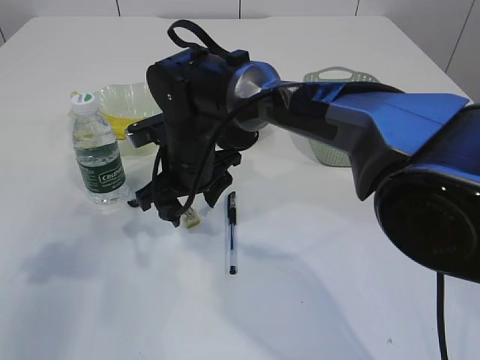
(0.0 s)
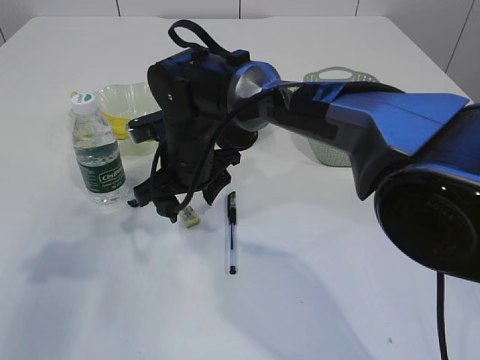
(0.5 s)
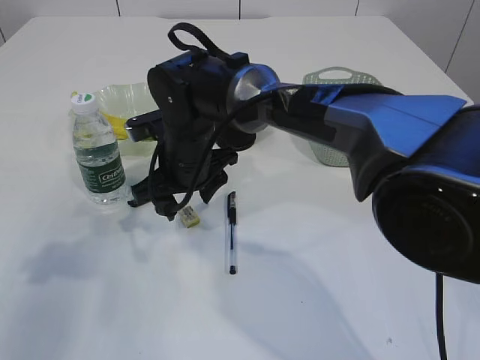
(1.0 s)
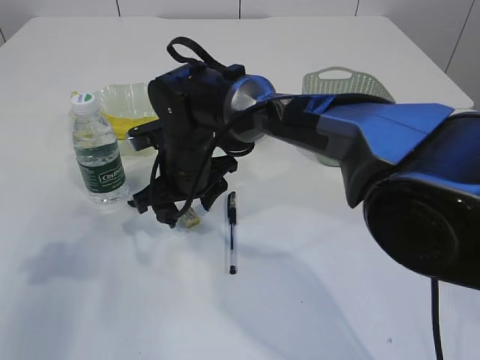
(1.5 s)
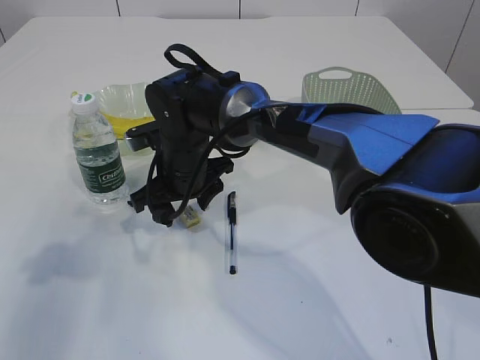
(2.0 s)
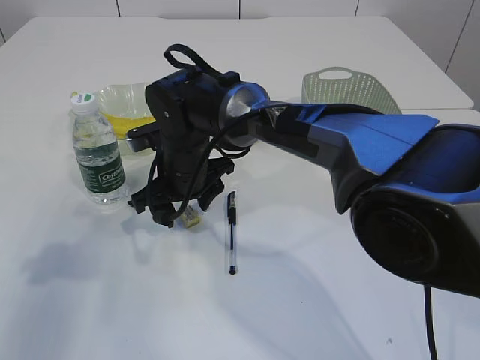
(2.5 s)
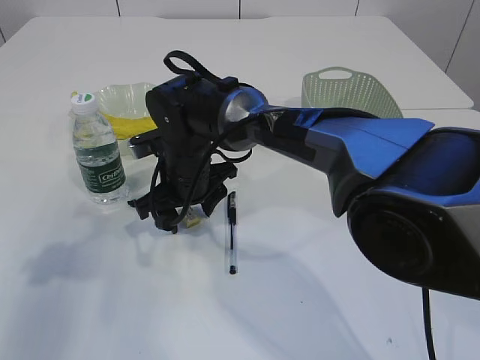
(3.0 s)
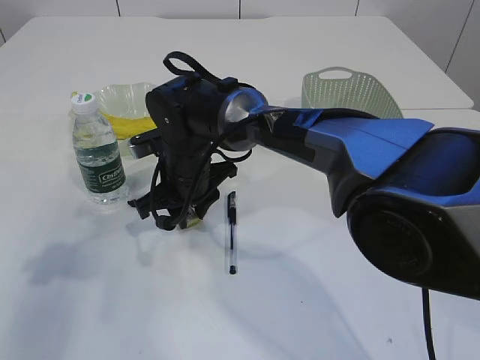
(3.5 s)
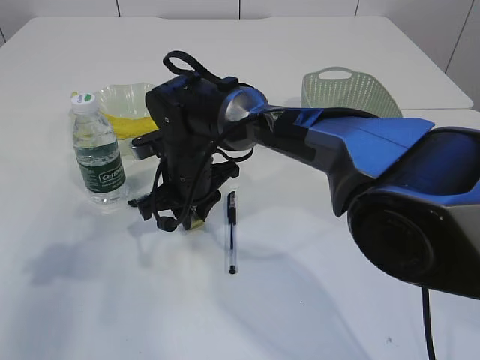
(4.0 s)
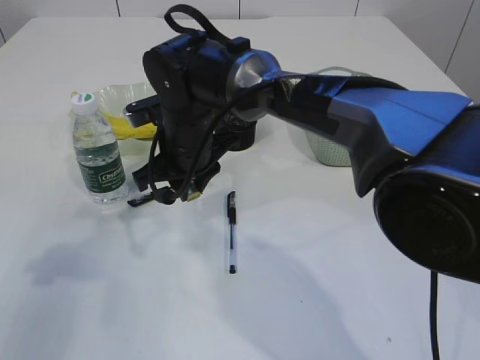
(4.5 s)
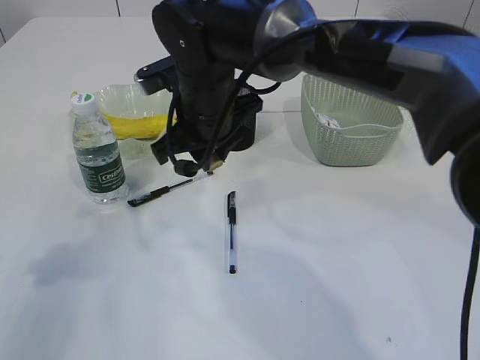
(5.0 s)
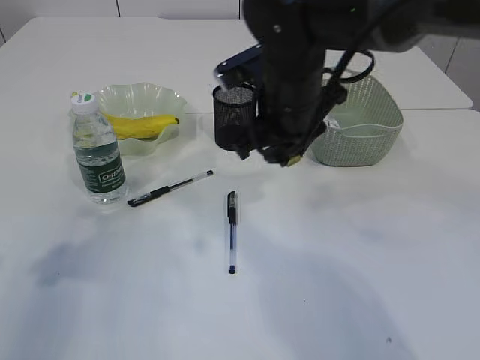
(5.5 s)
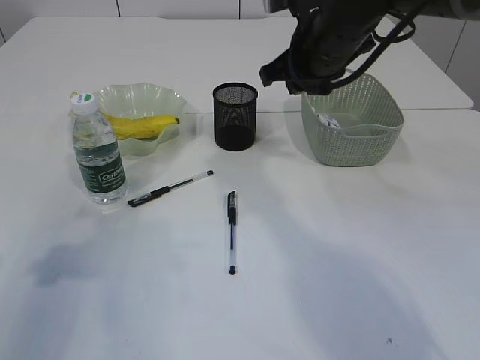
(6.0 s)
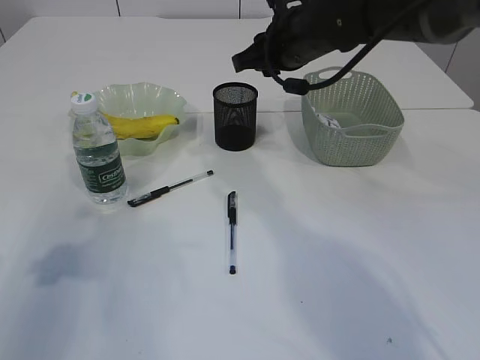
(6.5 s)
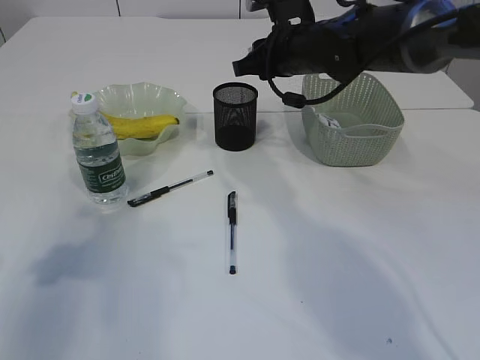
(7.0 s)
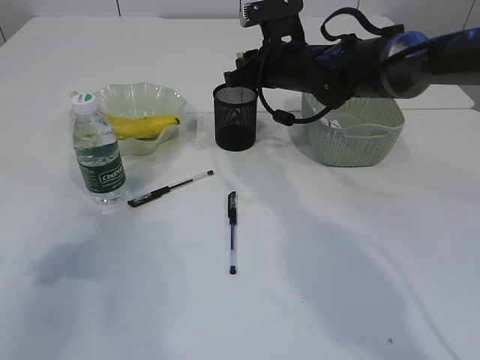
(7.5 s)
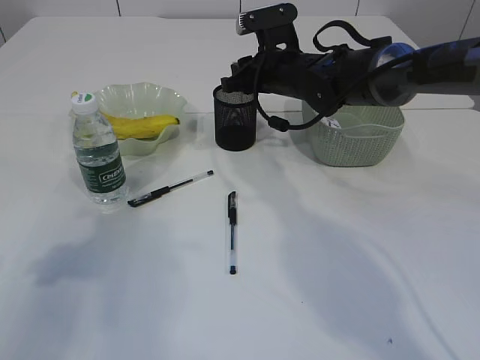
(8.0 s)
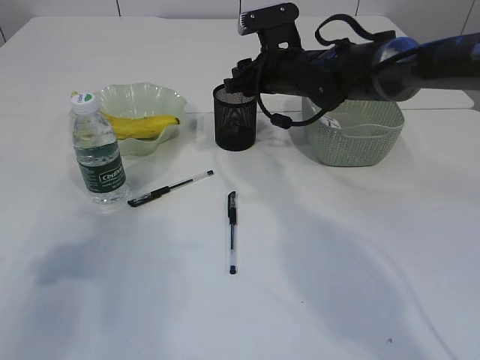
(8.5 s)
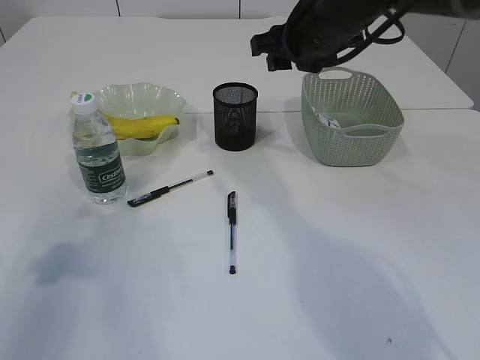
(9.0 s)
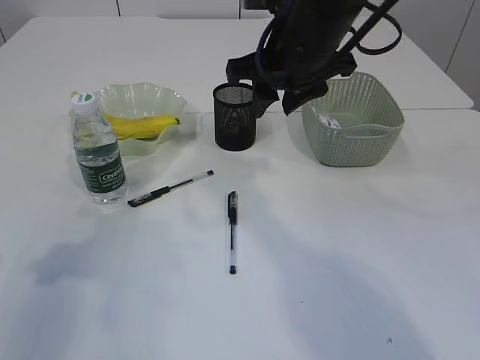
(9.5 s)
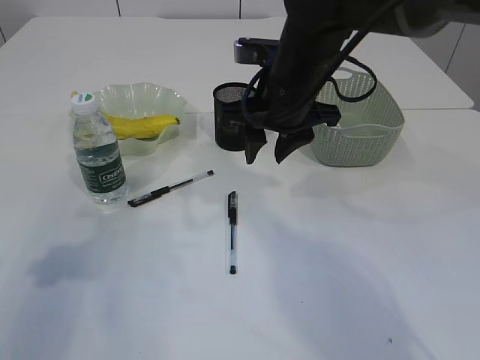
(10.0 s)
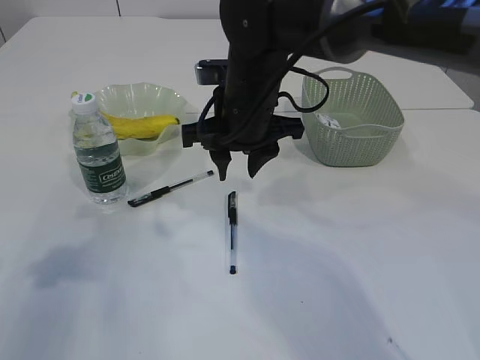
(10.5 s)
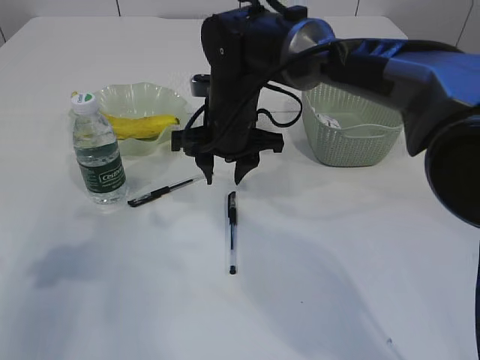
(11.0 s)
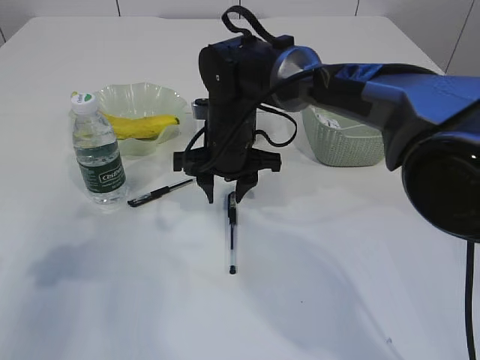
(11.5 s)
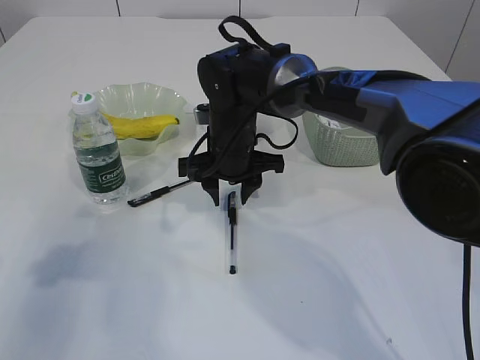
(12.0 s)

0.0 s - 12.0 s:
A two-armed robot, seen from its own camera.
Step, 0.0 s - 4.0 s: Pick up the eraser.
Step, 4.5 s - 8.5 s: Place the eraser into the pen holder.
0.0 s - 2.0 s: The grippers move only a little.
2.0 s - 4.0 s: The right gripper closes up.
4.0 s - 6.0 s: The right gripper is displaced to the right and upward by about 20 cm.
6.0 s - 8.0 s: The right gripper heads downward and forward, covering approximately 10 cm.
8.0 s - 10.0 s: The right gripper travels backward and upward by about 10 cm.
10.0 s - 12.0 s: The right gripper travels downward and to the left by about 10 cm.

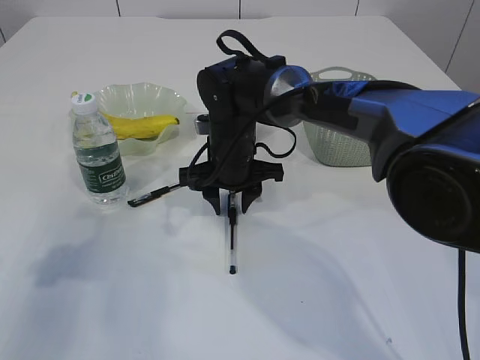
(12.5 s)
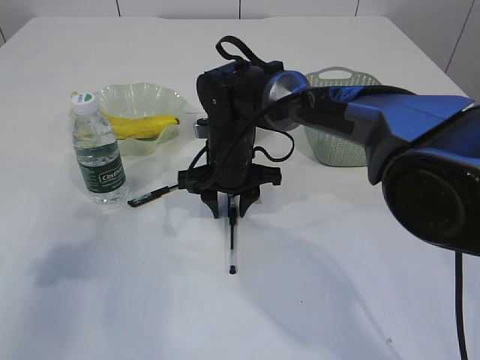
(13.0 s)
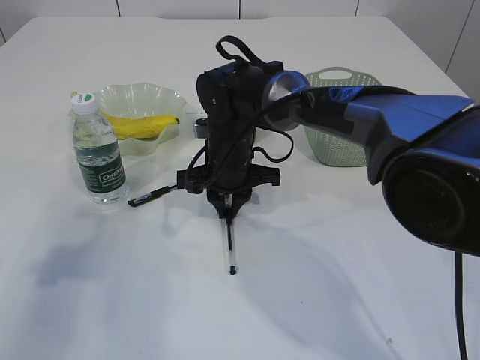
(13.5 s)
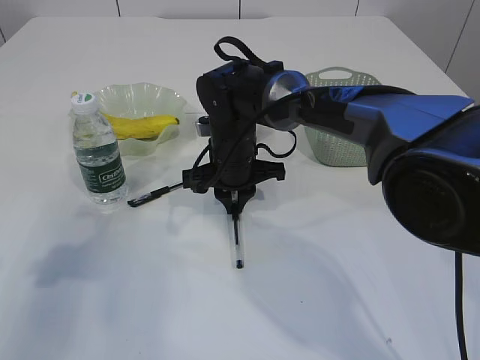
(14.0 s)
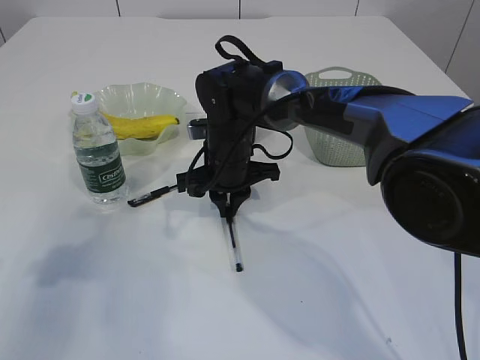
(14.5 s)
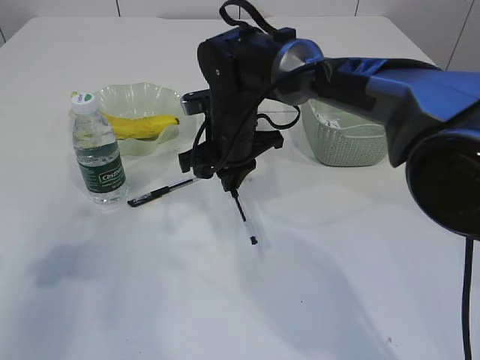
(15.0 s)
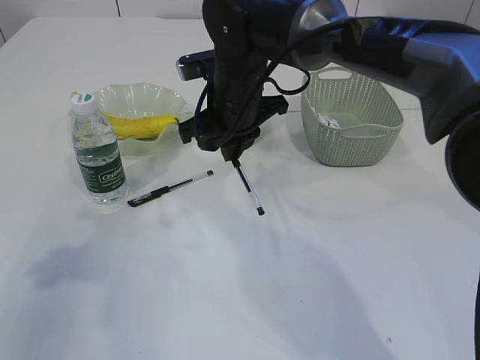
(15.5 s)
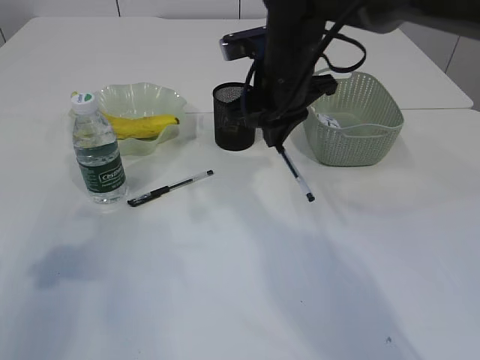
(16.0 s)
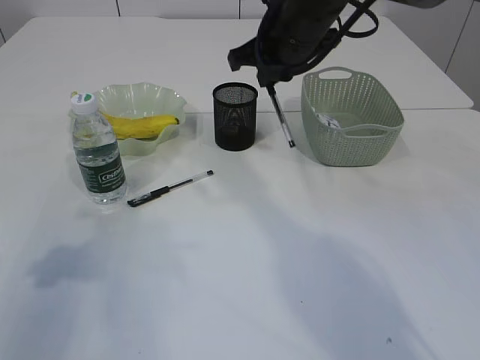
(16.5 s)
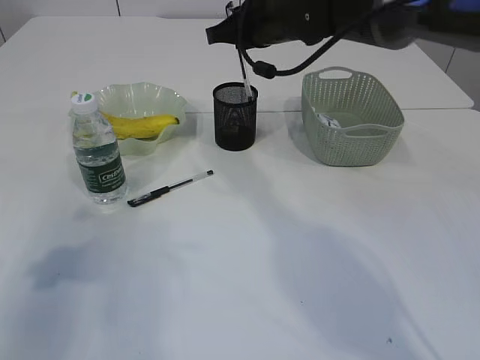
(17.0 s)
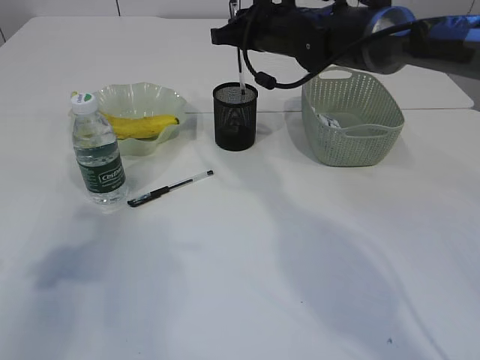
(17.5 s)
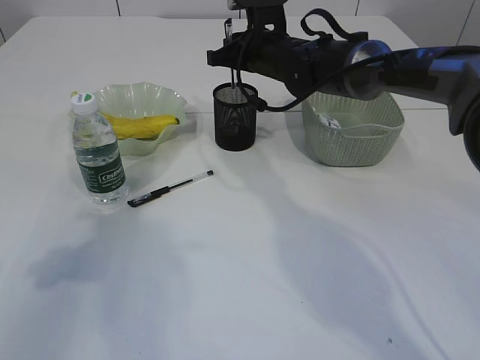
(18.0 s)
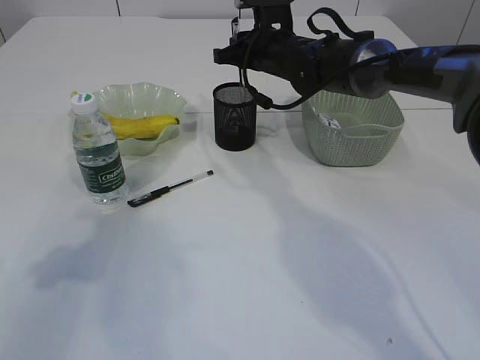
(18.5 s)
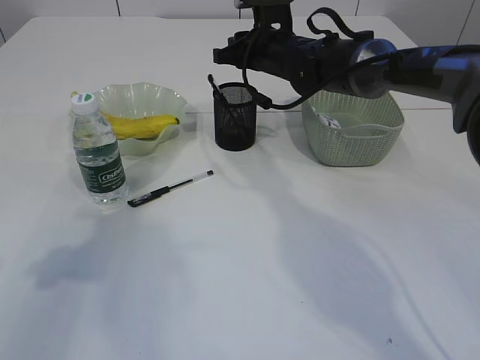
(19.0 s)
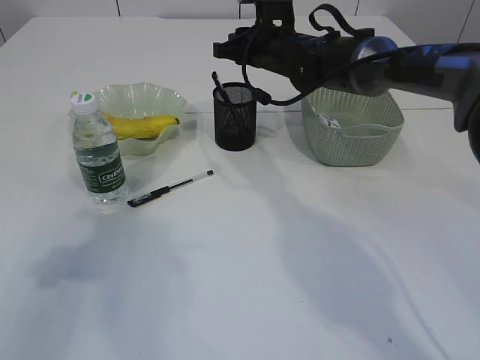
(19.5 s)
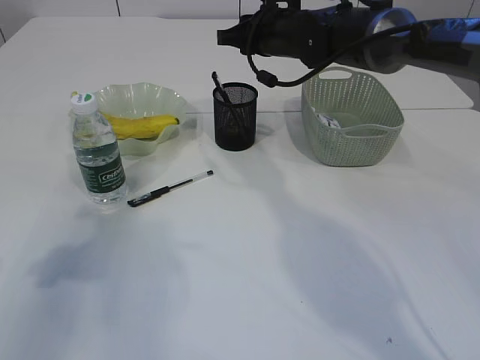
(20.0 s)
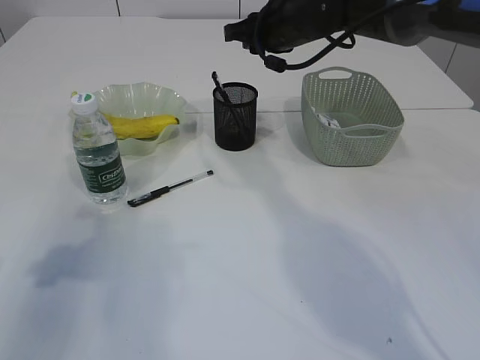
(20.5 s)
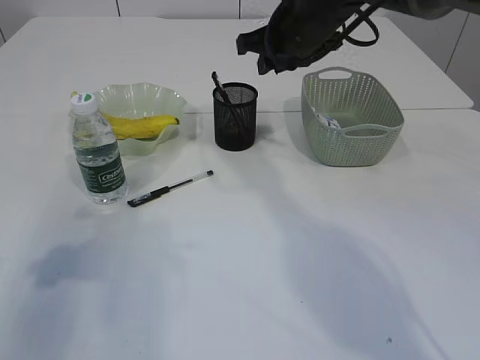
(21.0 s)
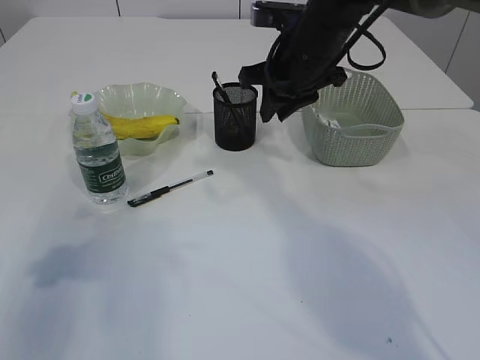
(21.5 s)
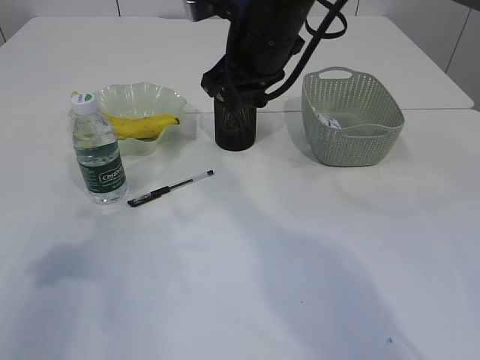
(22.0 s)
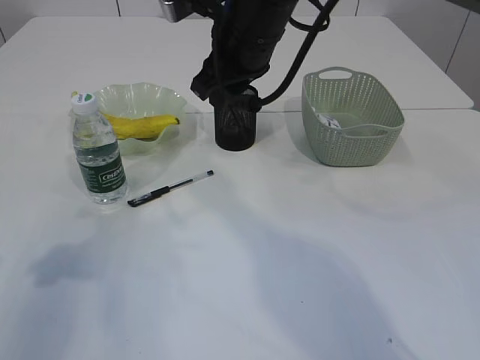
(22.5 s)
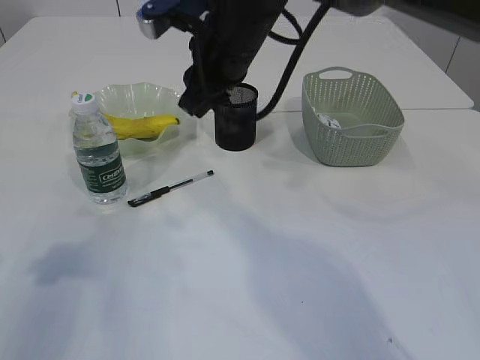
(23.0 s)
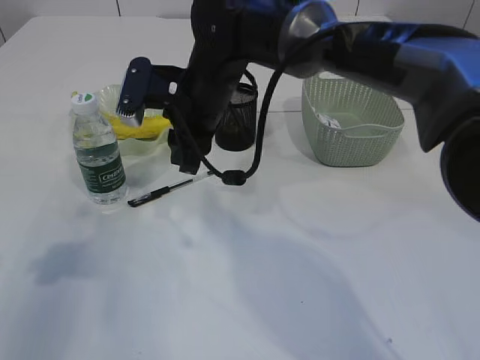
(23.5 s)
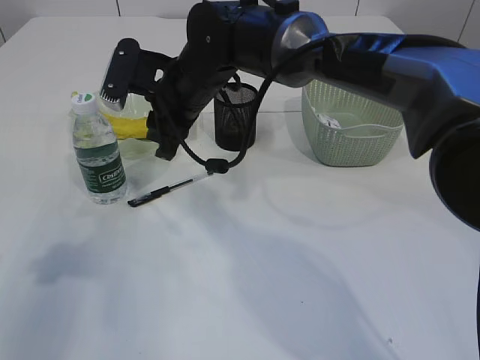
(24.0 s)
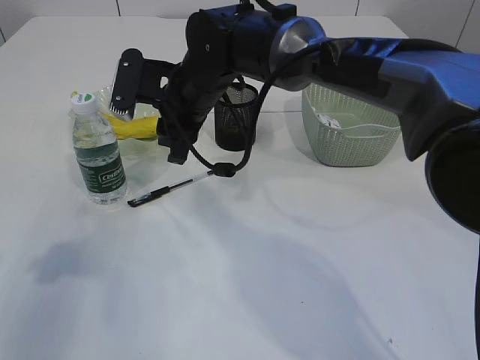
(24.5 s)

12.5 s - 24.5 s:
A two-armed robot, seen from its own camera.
Step, 12.5 s - 15.0 s: Pick up the pen with right arm.
Step, 15.5 s - 19.5 s: Place the pen into the pen holder.
12.5 s - 14.5 s: The right gripper closes up.
14.5 s - 16.5 s: The right gripper travels upward and to the right by approximately 20 cm.
16.5 s - 18.5 s: The right gripper travels forward and downward by roughly 10 cm.
18.5 s - 20.5 s: The right gripper goes approximately 5 cm upward.
20.5 s - 22.5 s: The right gripper goes roughly 10 cm backward and to the left.
22.5 s - 24.5 s: The right gripper shifts roughly 10 cm downward and to the left.

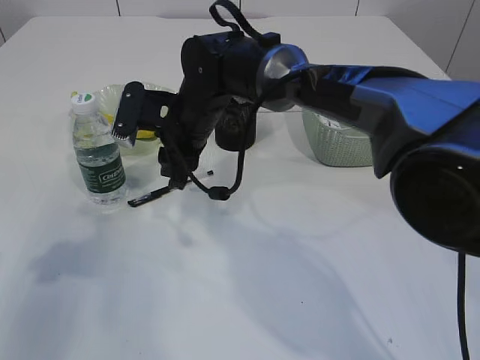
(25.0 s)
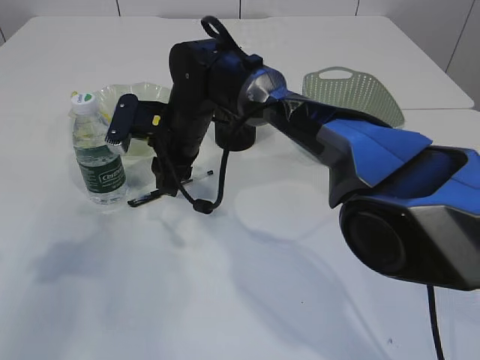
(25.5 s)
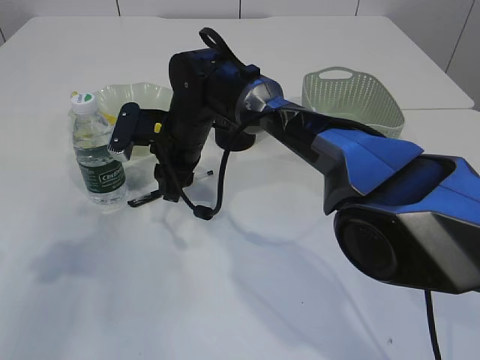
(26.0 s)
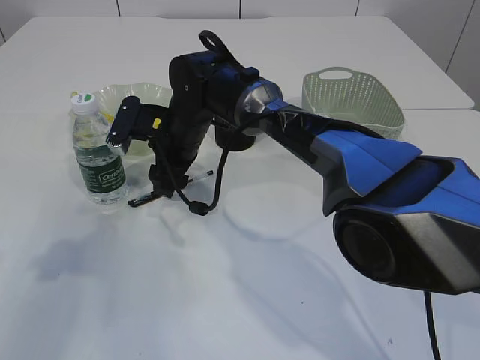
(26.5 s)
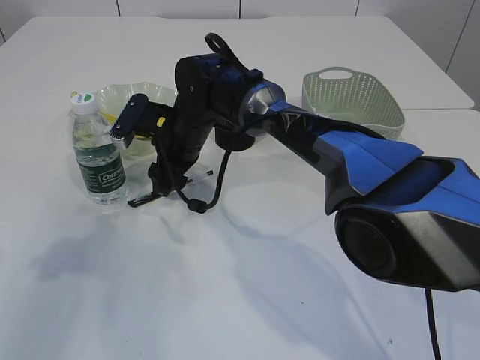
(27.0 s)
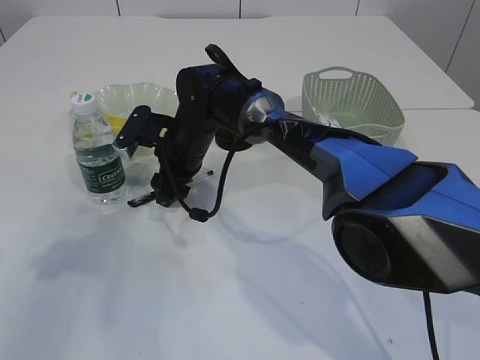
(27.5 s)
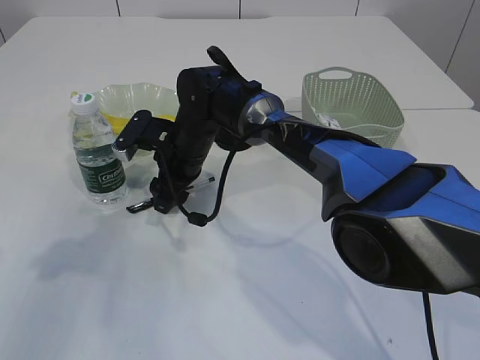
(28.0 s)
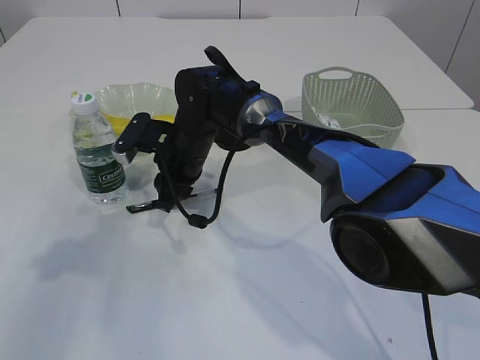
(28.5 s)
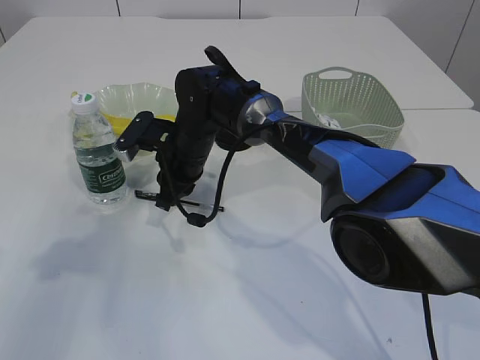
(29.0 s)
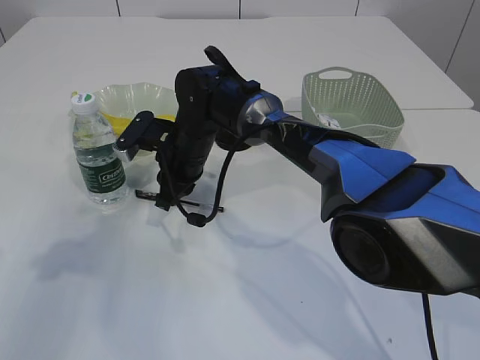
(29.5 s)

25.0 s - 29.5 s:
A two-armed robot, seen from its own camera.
25.0 s - 27.0 s: The right gripper opens up.
27.0 s - 29.5 s: The right gripper closes its fingers.
